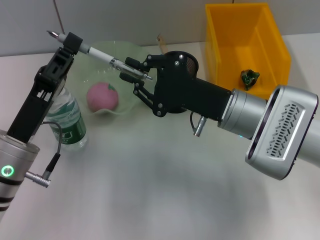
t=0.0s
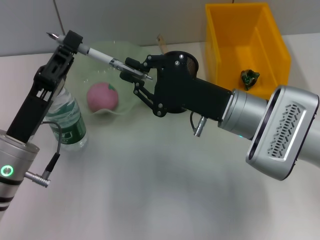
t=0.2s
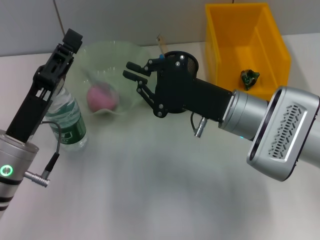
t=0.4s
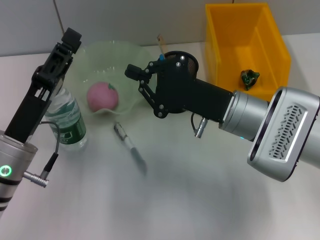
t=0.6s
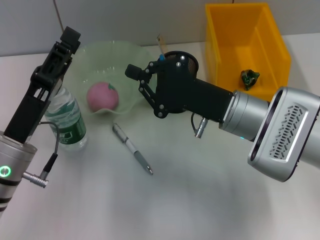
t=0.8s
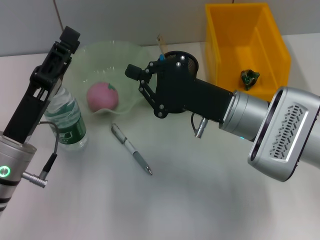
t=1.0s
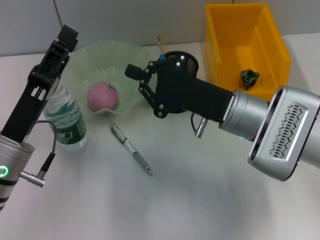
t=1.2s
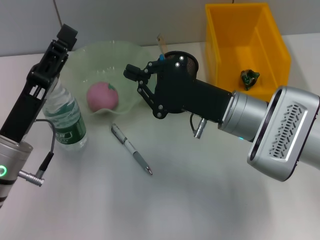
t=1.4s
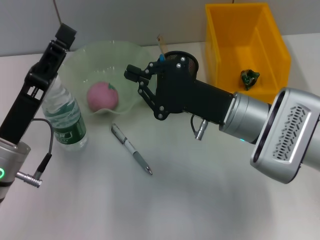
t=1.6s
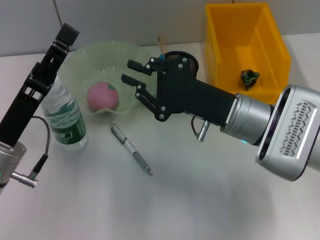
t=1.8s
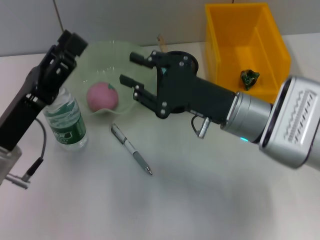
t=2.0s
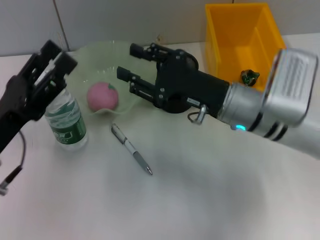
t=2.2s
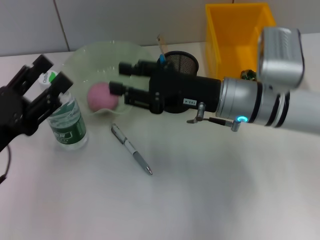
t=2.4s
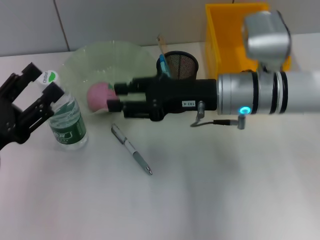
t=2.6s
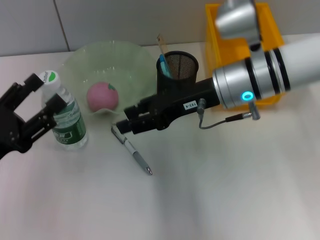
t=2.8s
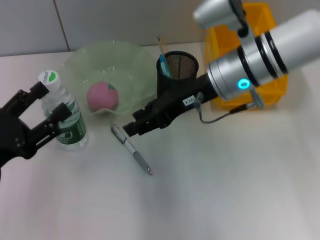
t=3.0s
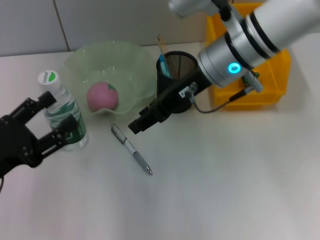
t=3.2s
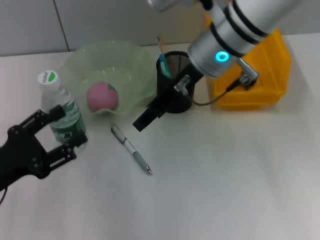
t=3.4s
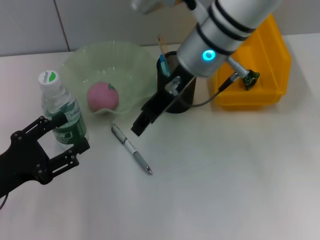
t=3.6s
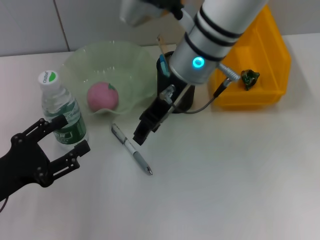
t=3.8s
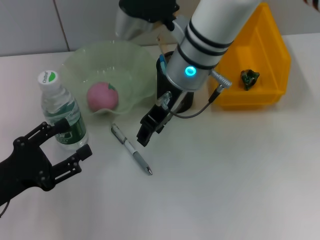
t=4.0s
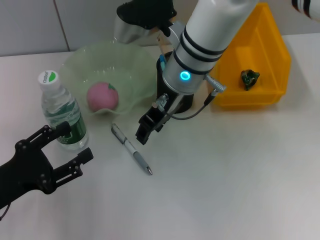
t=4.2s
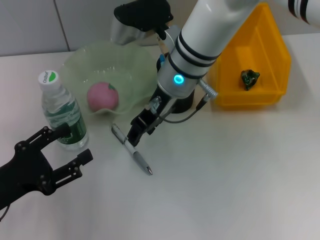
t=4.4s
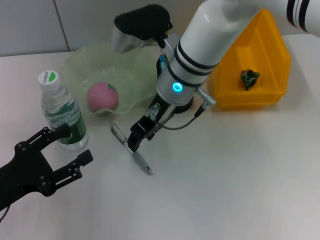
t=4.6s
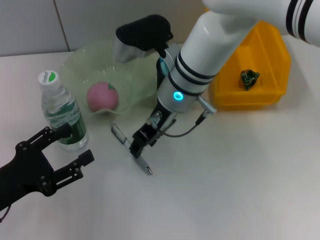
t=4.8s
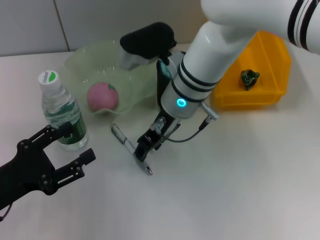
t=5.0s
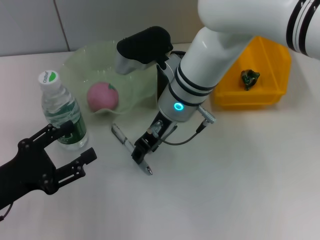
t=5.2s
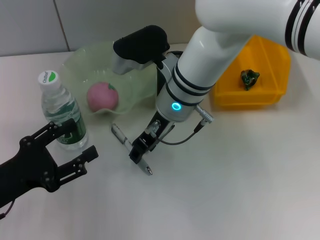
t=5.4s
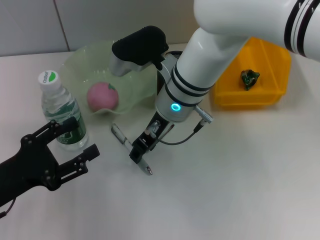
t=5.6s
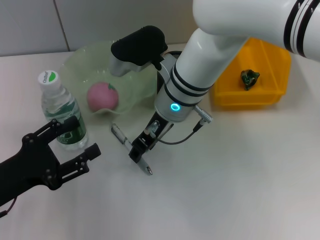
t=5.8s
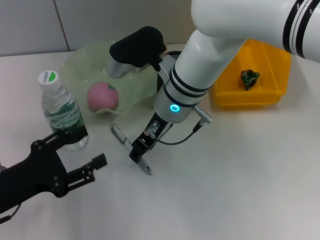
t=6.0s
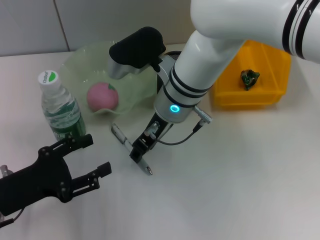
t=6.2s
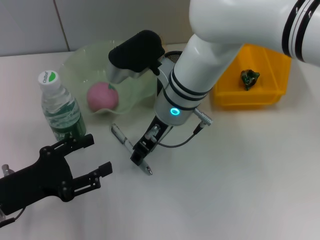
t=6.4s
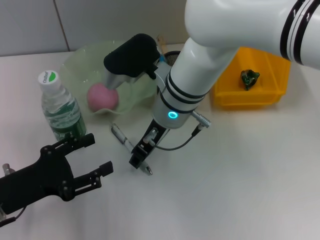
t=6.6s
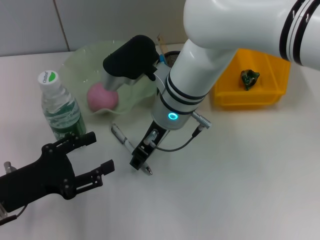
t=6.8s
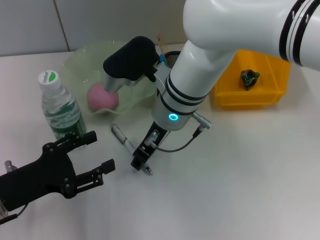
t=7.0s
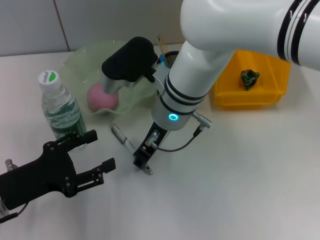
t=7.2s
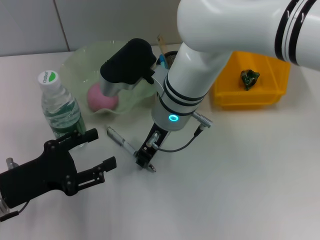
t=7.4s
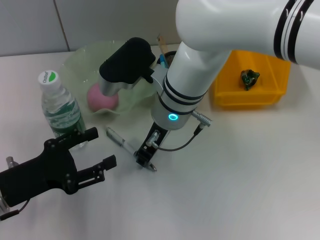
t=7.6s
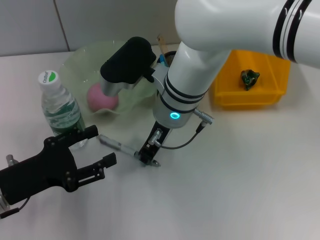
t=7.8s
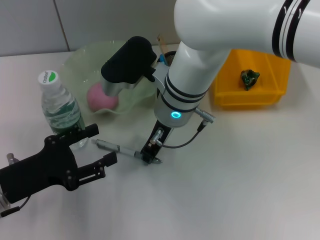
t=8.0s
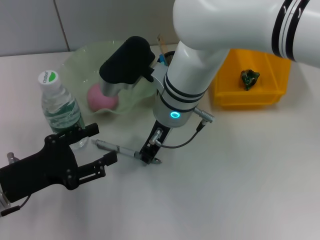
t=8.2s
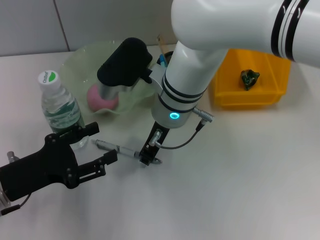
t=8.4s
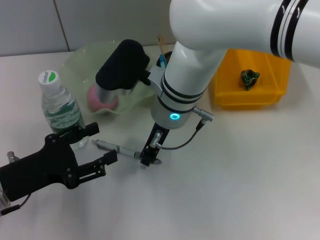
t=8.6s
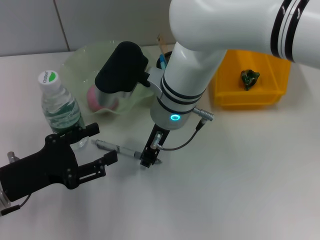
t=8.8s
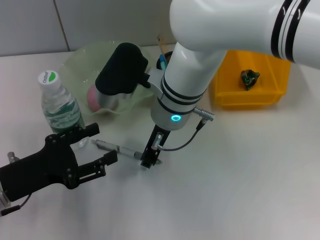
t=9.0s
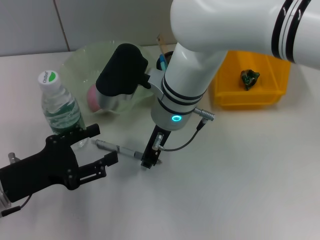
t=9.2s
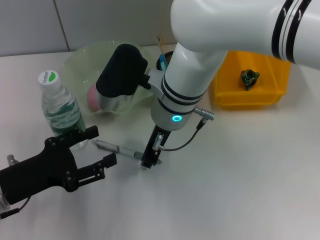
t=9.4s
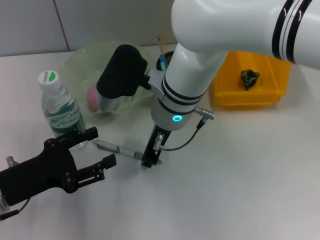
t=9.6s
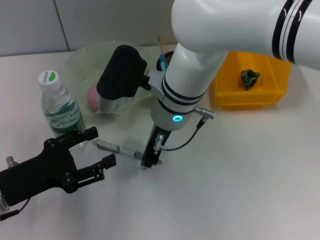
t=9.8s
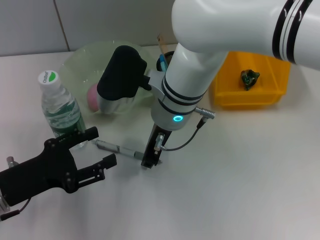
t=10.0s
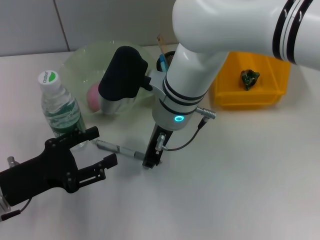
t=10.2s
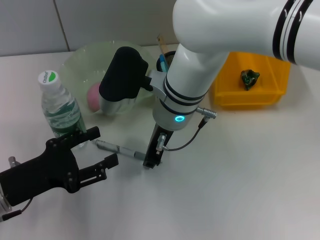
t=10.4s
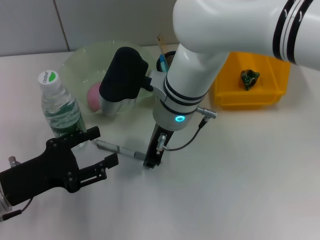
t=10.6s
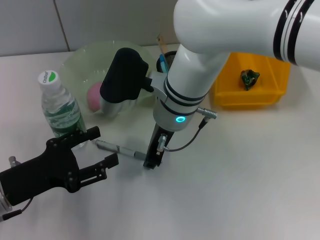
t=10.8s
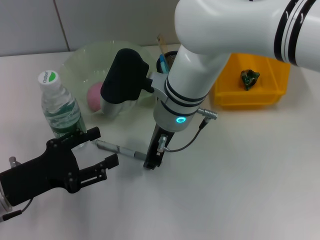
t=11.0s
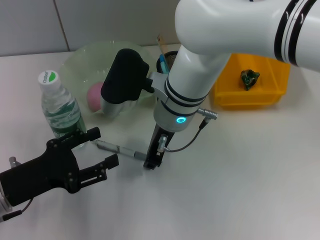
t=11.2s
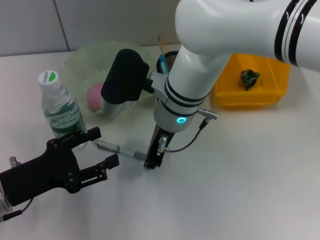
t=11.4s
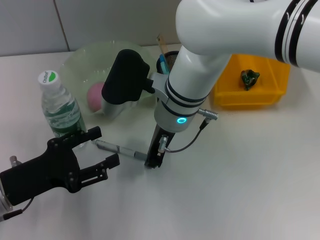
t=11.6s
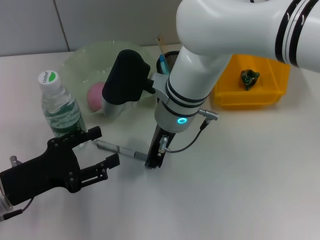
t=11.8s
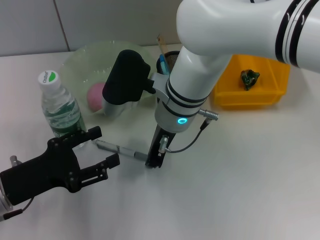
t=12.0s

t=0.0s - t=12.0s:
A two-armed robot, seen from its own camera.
t=0.0s - t=1.6s: The left gripper opens up.
t=1.6s - t=3.0s: The right gripper is displaced upward and forward by some 10 cm, and opens up, while the left gripper shifts approximately 10 cm to the left.
t=3.0s - t=4.4s: The right gripper shifts approximately 10 cm to the left.
t=4.4s - t=7.6s: The grippers make only small movements.
t=7.6s - t=10.4s: There are only small adjustments of the grippers.
t=10.4s - t=12.0s: Neither gripper changes place.

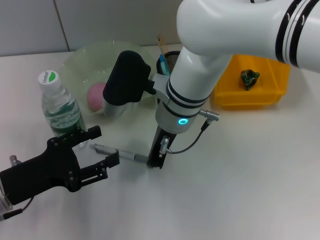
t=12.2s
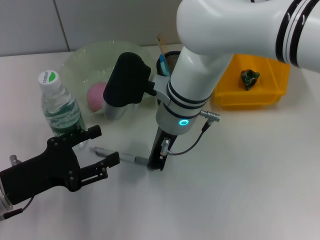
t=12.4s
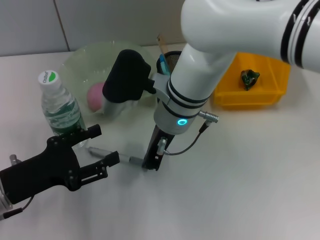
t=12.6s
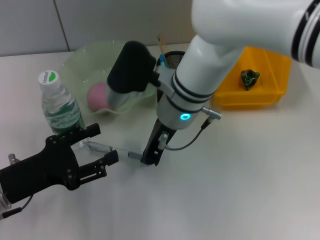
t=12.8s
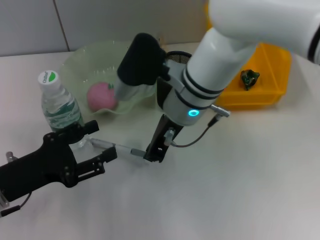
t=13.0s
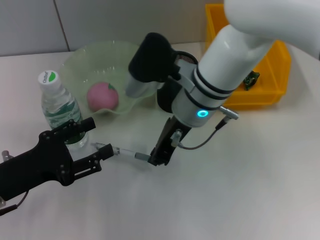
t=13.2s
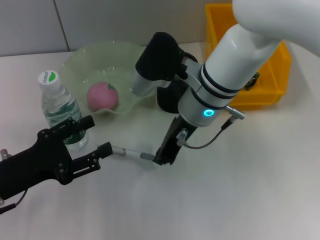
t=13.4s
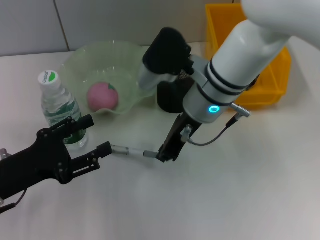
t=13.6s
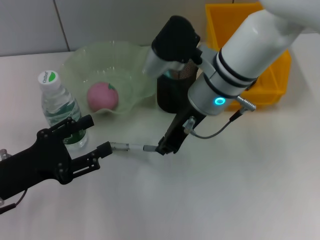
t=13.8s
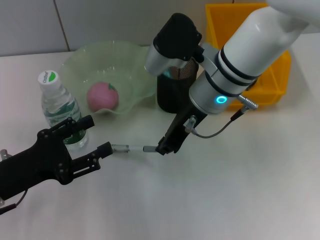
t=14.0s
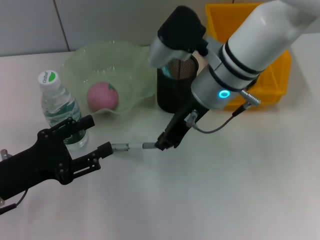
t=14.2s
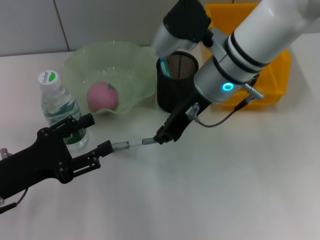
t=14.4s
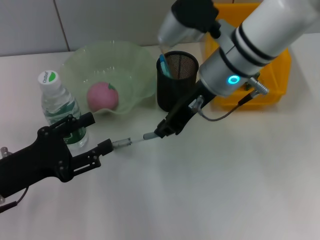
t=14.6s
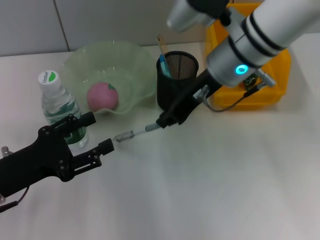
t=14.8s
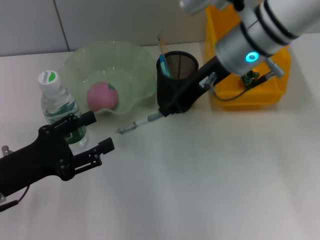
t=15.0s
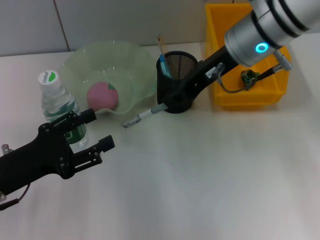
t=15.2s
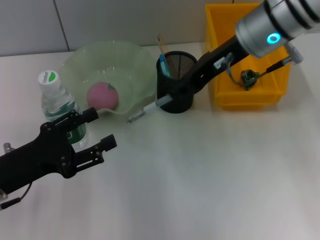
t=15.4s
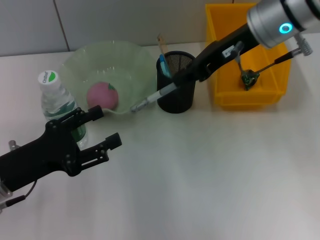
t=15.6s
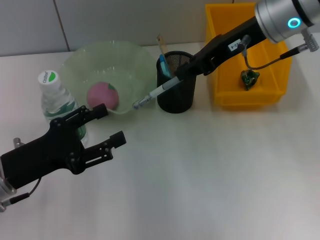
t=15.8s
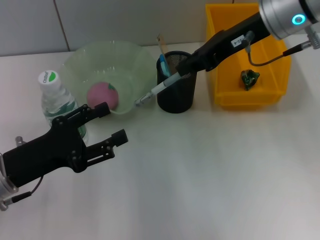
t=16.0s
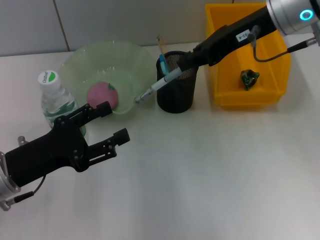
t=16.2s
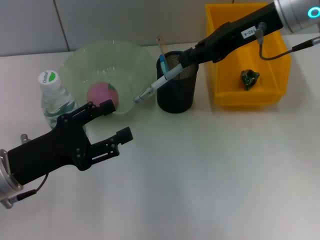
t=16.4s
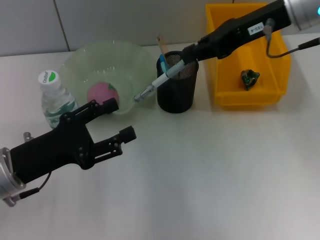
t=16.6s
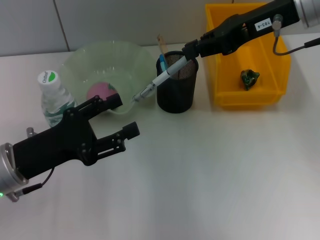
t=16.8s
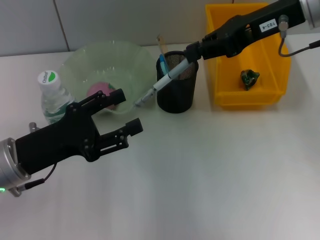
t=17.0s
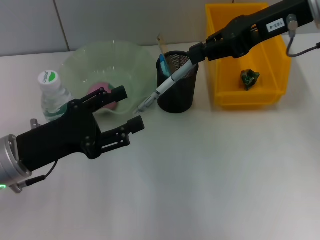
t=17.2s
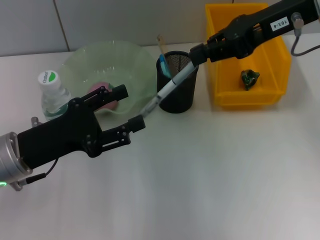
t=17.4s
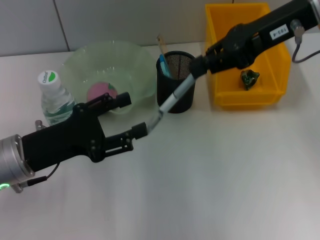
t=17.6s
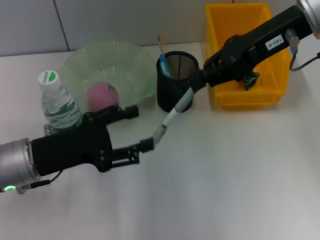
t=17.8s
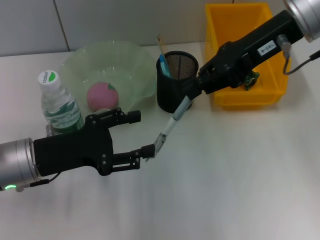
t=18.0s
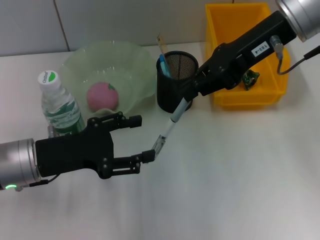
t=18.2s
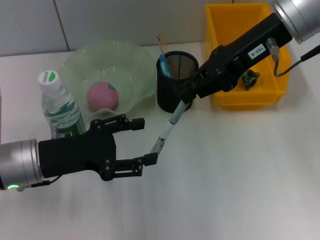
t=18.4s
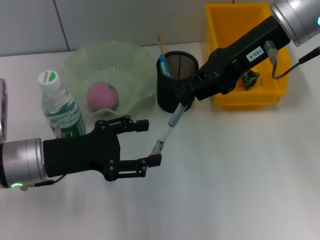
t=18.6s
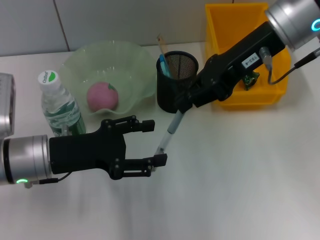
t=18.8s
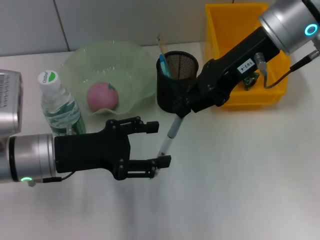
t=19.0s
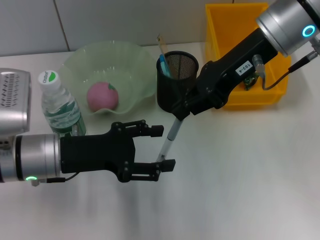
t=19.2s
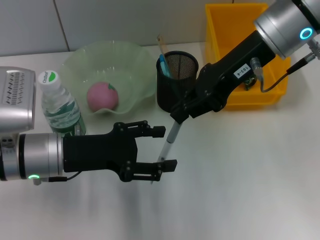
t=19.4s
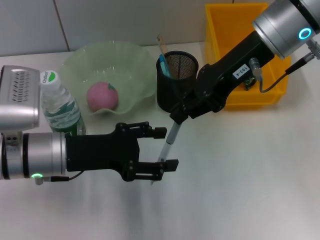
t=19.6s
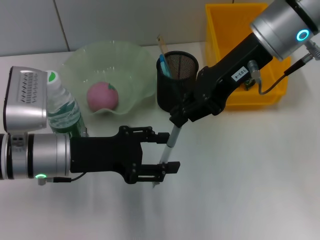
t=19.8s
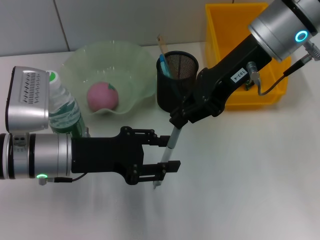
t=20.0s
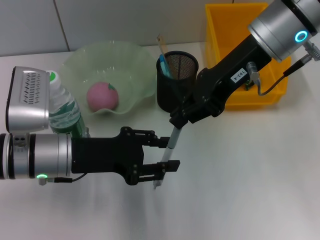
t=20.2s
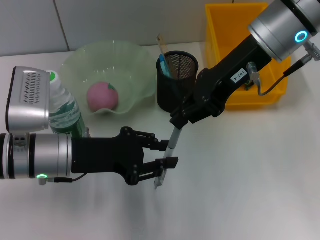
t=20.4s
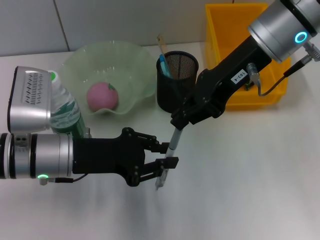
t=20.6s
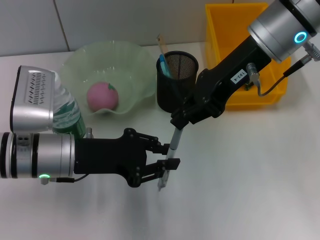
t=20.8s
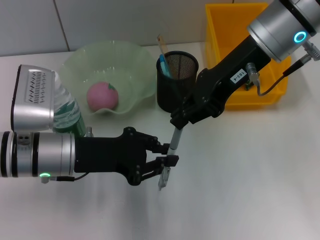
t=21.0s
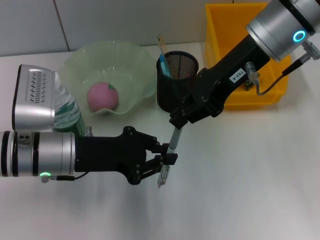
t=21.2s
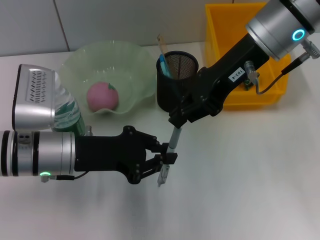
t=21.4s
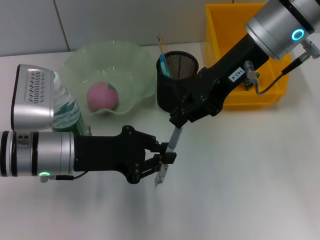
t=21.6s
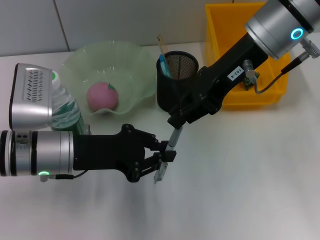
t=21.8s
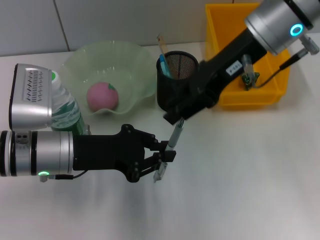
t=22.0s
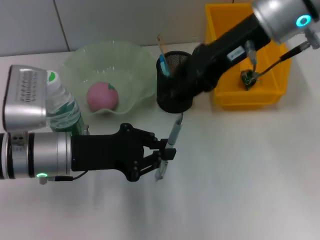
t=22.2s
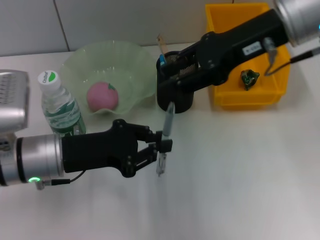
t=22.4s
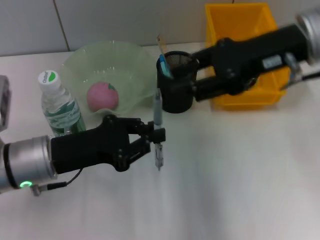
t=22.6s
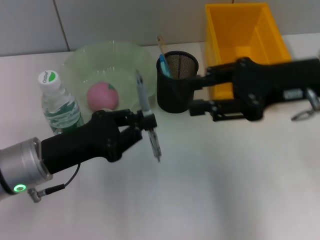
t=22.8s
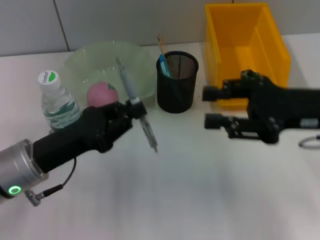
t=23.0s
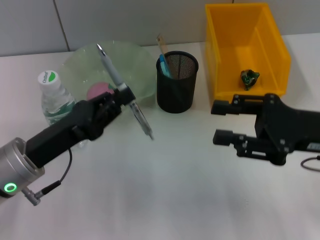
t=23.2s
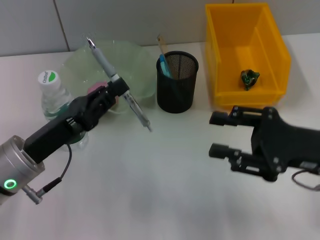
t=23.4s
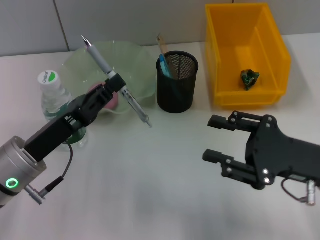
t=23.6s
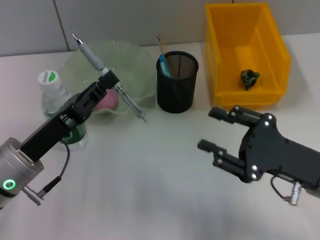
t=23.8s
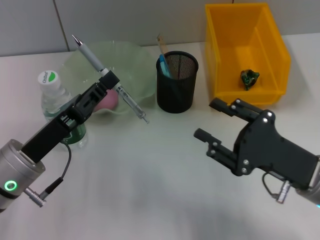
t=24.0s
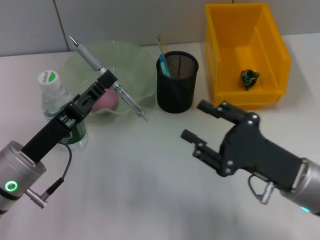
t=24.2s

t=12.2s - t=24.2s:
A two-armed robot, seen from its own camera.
t=12.2s - t=13.8s: The right gripper is displaced to the right by approximately 5 cm.
t=13.8s - t=15.2s: The right gripper goes approximately 10 cm upward and to the right.
t=15.2s - t=16.6s: The right gripper moves to the right, about 5 cm.
t=16.6s - t=18.2s: The grippers make only small movements.
t=19.8s - t=21.2s: The left gripper closes its fingers.
t=21.2s - t=22.6s: The right gripper heads to the right, covering approximately 5 cm, and opens.
t=22.6s - t=24.2s: The right gripper goes about 25 cm downward and backward.
